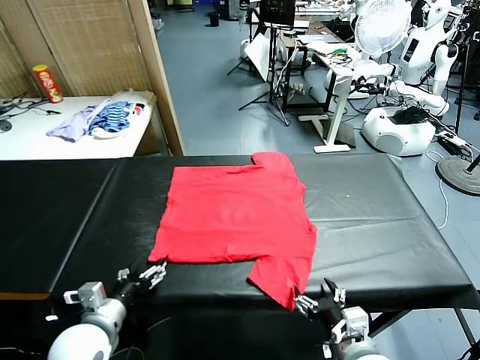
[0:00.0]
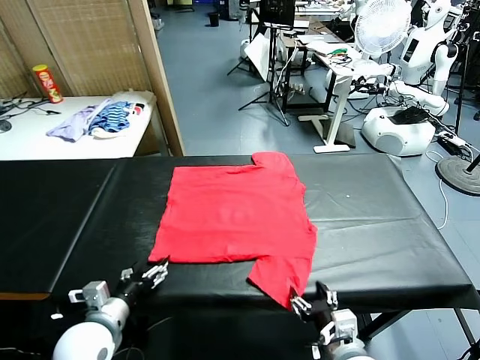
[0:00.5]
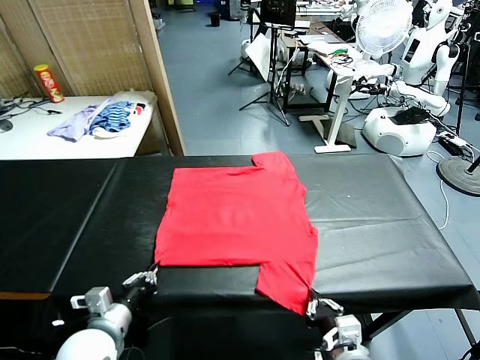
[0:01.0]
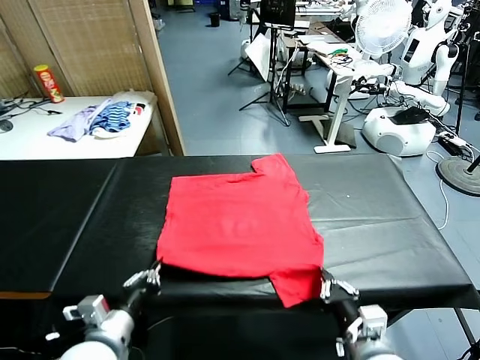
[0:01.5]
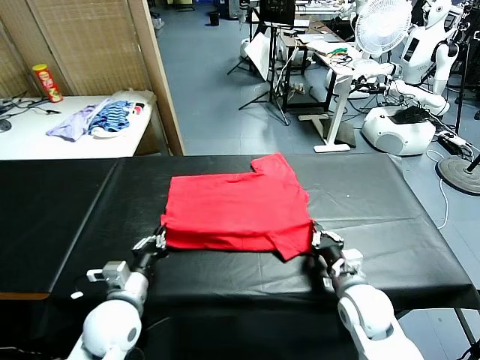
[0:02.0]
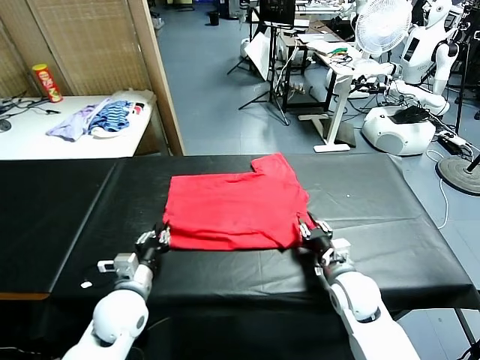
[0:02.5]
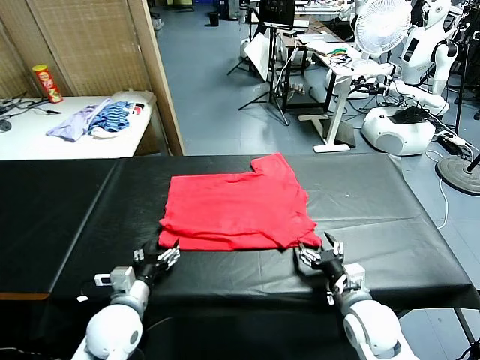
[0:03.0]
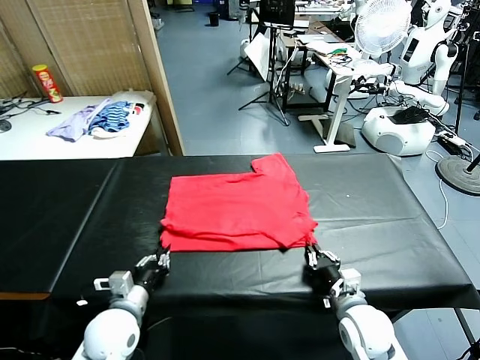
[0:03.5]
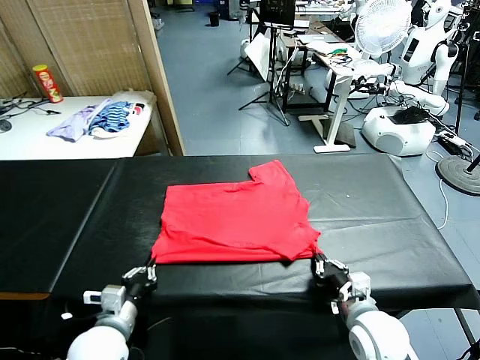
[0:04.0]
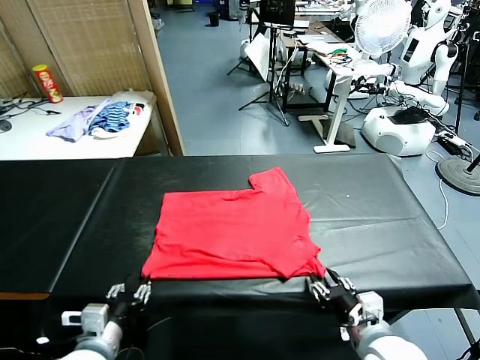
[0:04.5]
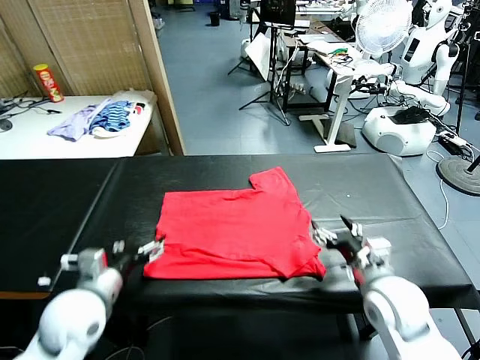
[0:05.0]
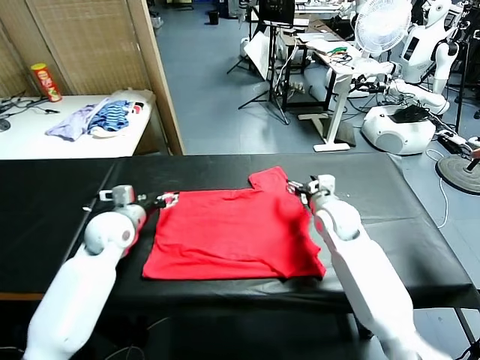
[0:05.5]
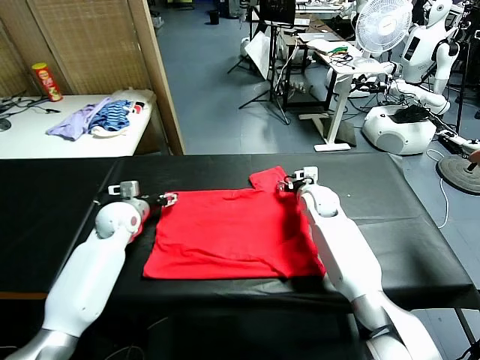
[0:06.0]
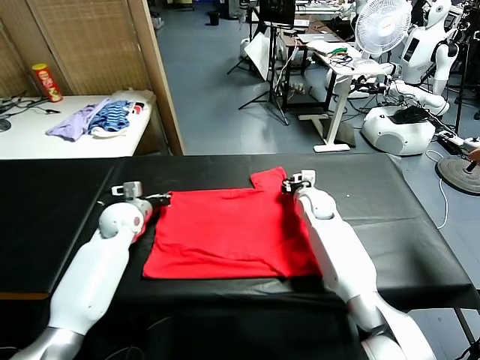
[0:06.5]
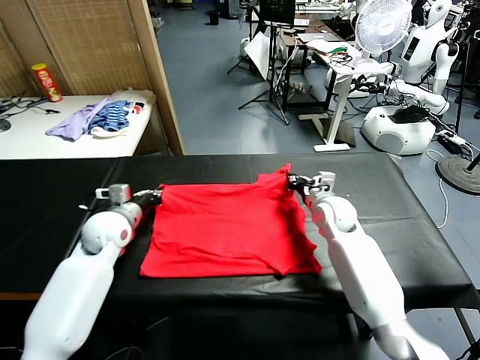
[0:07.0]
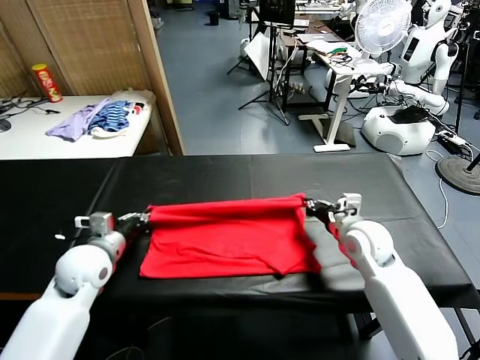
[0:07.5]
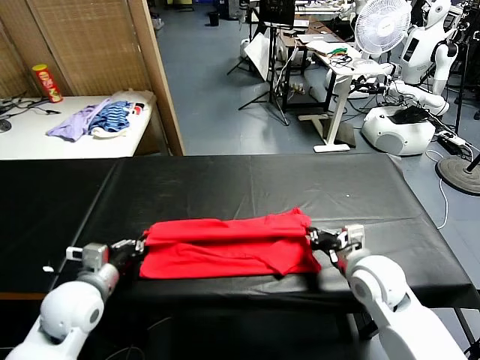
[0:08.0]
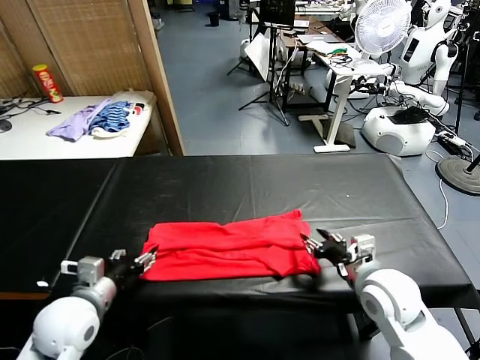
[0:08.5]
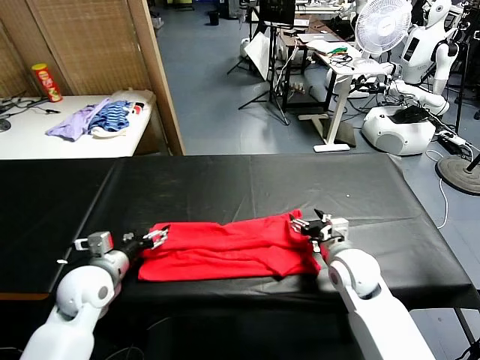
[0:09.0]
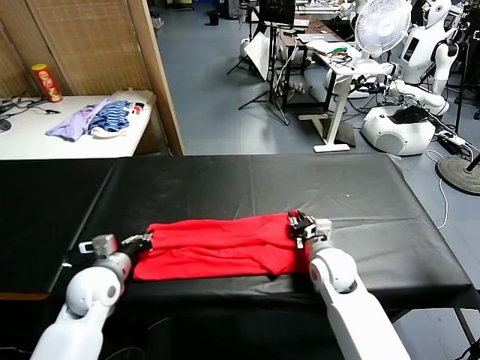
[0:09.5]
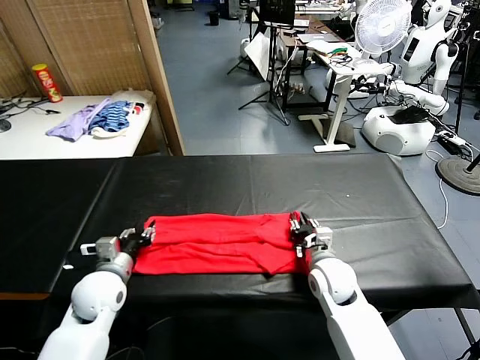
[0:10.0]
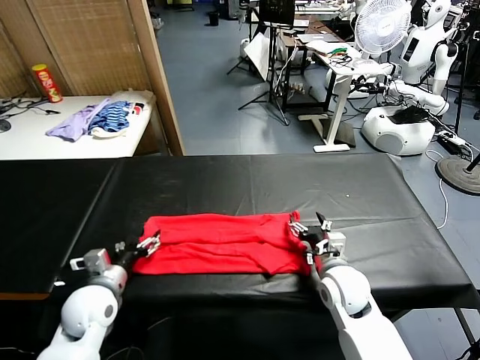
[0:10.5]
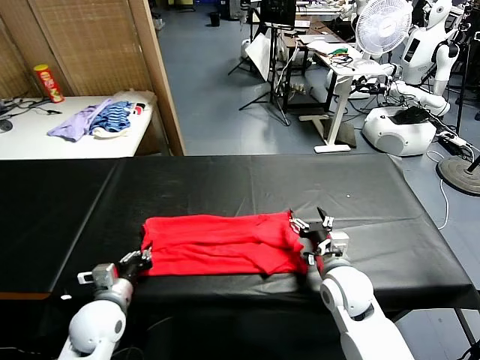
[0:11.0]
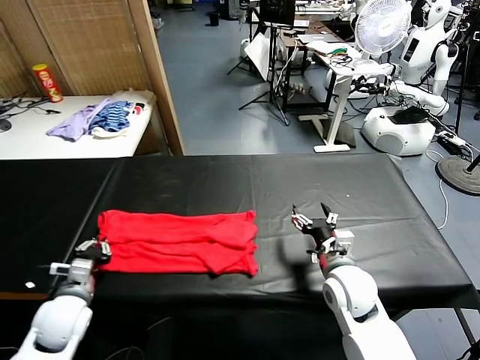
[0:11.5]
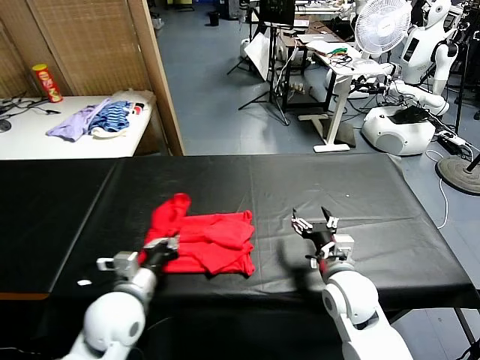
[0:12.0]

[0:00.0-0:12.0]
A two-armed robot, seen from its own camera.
Task of the whole recording: fold and organize the clothes.
Step, 0.0 to 1.0 s: use both grippers simultaneously to clamp the lower edge of the clothing fabric.
Step, 1.5 to 2.5 s: use both grippers to drag the lower edge of the fabric forward and fold it over the upper edge.
Step, 3.0 to 4.5 s: Drag the clothes downward with both gripper.
Step, 5.0 to 6.5 s: use both grippers simultaneously to clamp the upper edge of the clothing fabric.
Step, 7.5 to 8.5 s: use both grippers to drag the upper edge of the fabric backward and fold it over the lower edge.
Step, 9.0 to 11.0 s: use the left gripper to clamp the left edge of the fabric.
2.0 to 4.0 s: The left gripper goes about 5 cm backward, and opens and closes again; the right gripper travels backward by roughly 15 cm, and opens, then closes once more.
4.0 to 6.0 s: The grippers both shift forward by roughly 30 cm. The right gripper opens, then closes again. The left gripper opens up.
6.0 to 8.0 s: The two grippers go some 25 cm backward. The left gripper closes its fingers, while the right gripper closes.
8.0 to 10.0 s: The left gripper goes approximately 5 cm forward, and opens; the right gripper goes approximately 5 cm downward, and opens up.
10.0 to 12.0 s: The left gripper moves to the right and backward, about 10 cm, and closes its fingers. The right gripper shifts by roughly 5 cm.

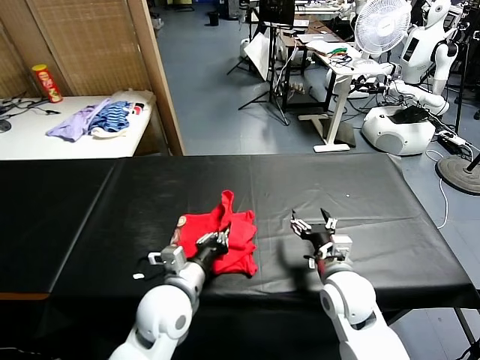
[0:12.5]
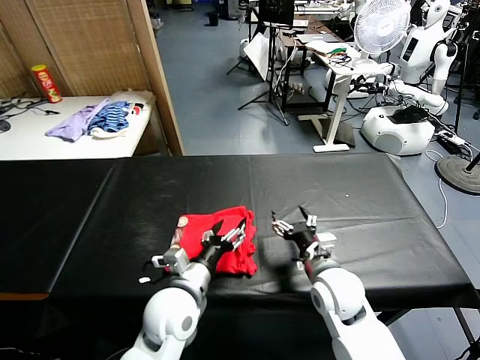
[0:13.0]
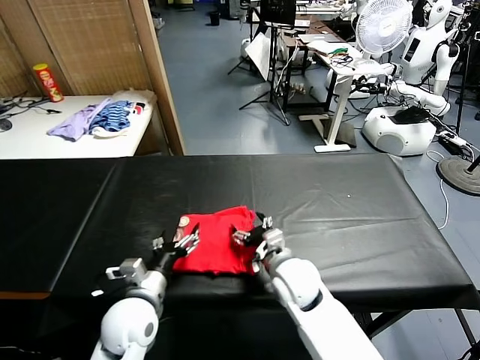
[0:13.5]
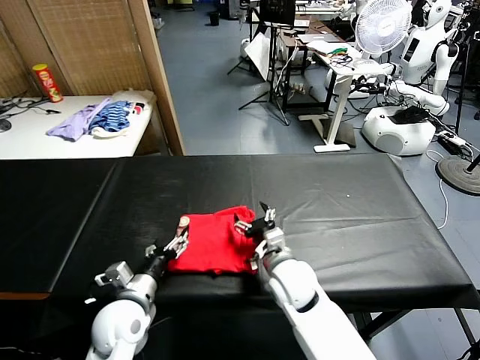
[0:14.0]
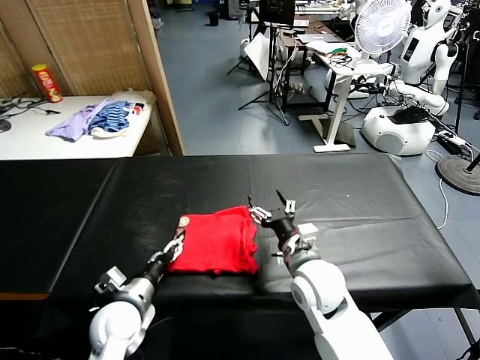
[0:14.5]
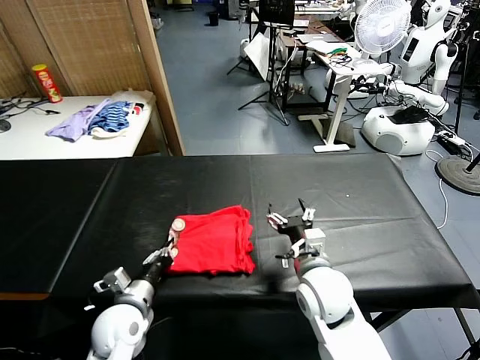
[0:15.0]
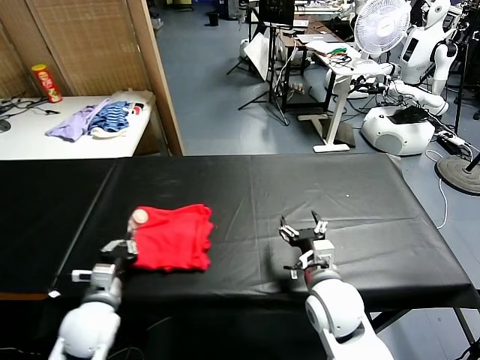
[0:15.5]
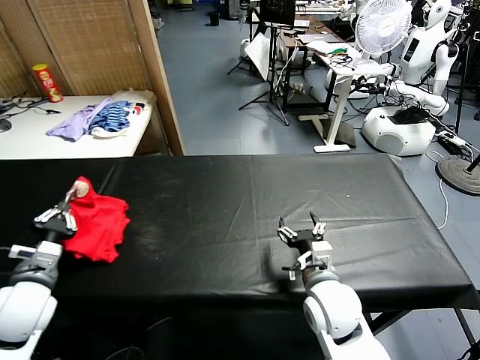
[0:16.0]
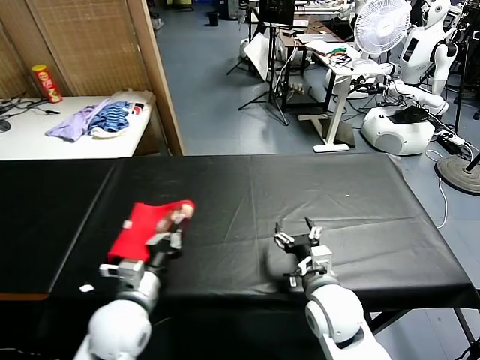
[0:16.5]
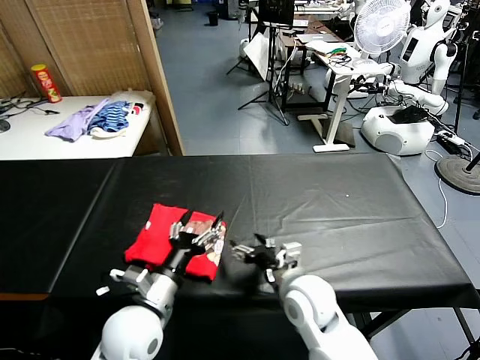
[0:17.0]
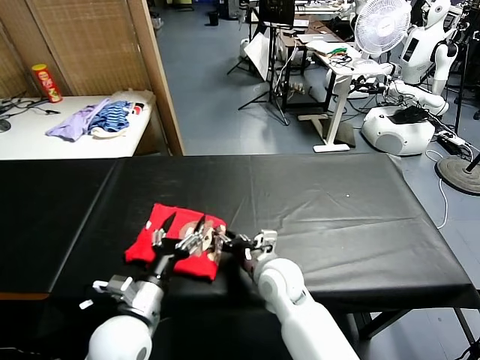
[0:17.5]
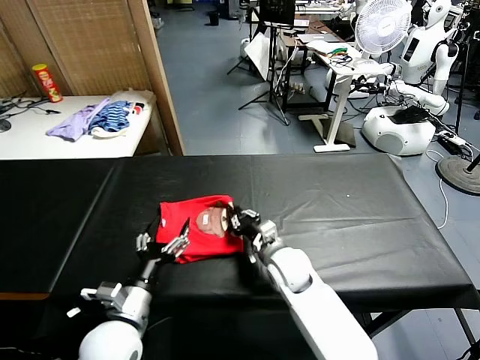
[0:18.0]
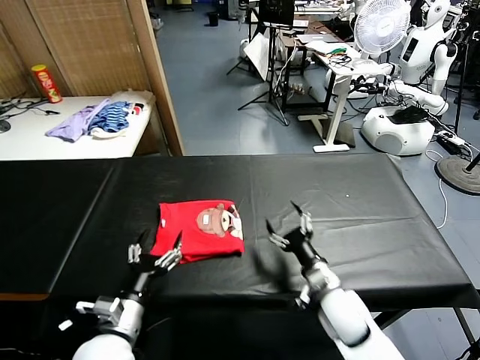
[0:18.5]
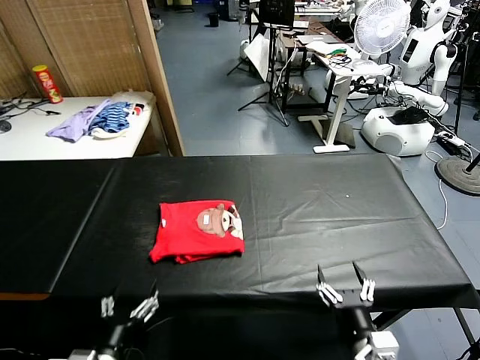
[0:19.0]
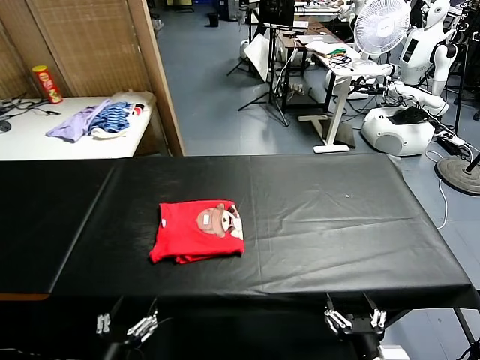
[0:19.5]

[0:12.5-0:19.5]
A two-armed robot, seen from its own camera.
Task of the whole recording: fold and organize the clothes.
Step, 13.5 to 16.5 s: Flip the folded clothes over with left gripper.
Step, 17.0 to 18.0 s: Drag the clothes to the center of the table.
12.5 to 14.5 s: The left gripper is displaced to the left and downward by approximately 15 cm, and opens its fingers; the right gripper travels to the left by roughly 5 cm.
14.5 to 16.0 s: The left gripper heads to the left and upward, covering roughly 15 cm, and closes.
16.0 to 17.5 s: The right gripper is displaced to the left and forward by approximately 10 cm, and closes its fingers. The left gripper travels to the right by some 20 cm, and opens its fingers.
17.5 to 19.5 s: The right gripper moves backward and to the right, some 30 cm, and opens; the left gripper shifts approximately 15 cm backward.

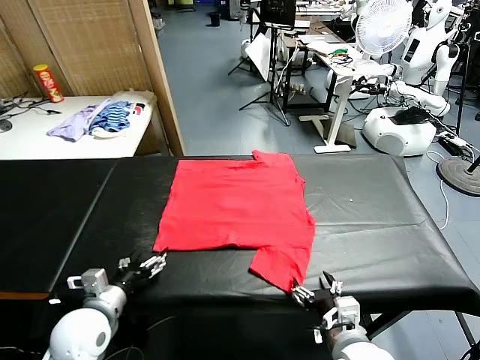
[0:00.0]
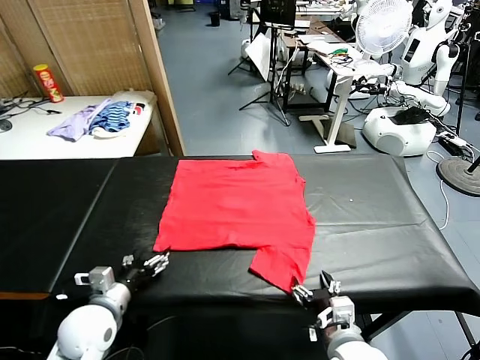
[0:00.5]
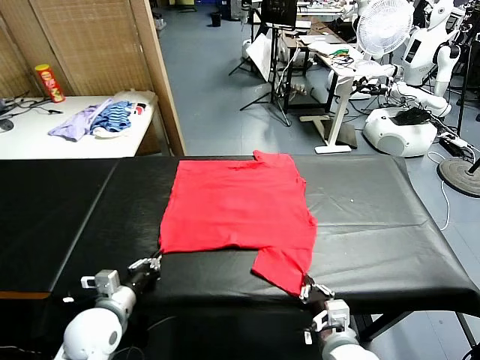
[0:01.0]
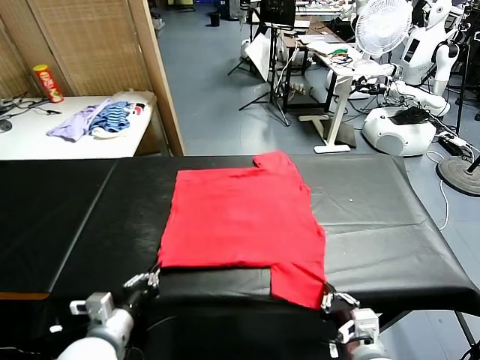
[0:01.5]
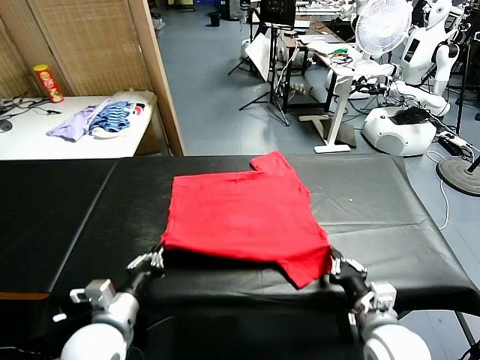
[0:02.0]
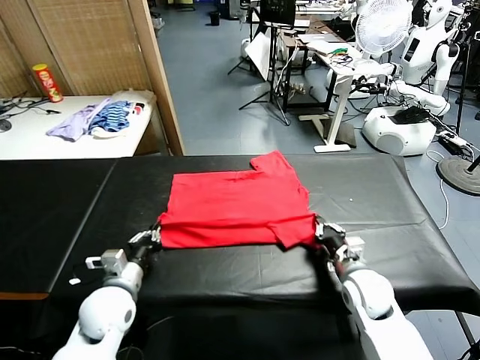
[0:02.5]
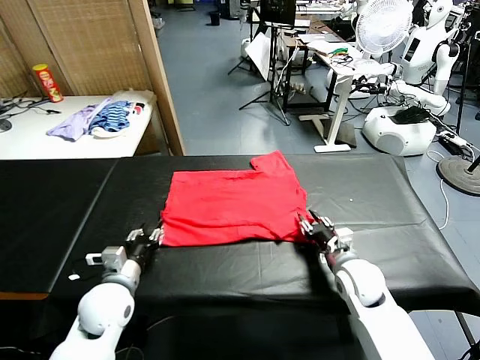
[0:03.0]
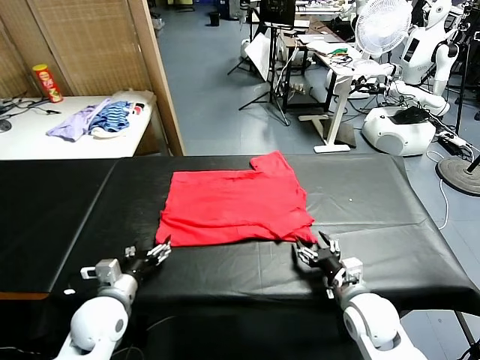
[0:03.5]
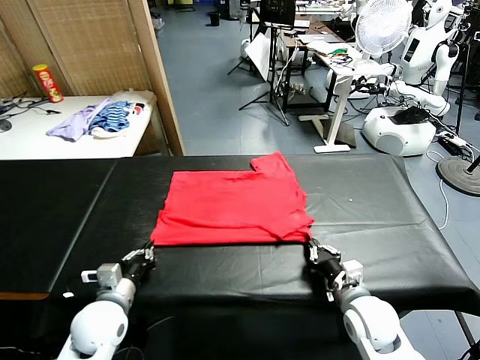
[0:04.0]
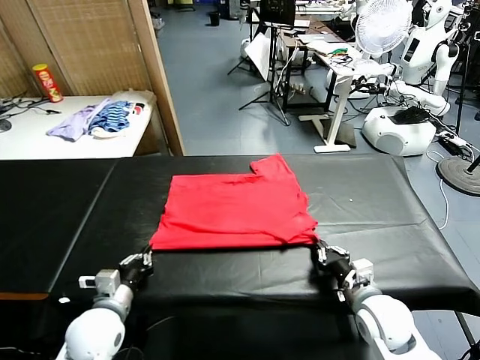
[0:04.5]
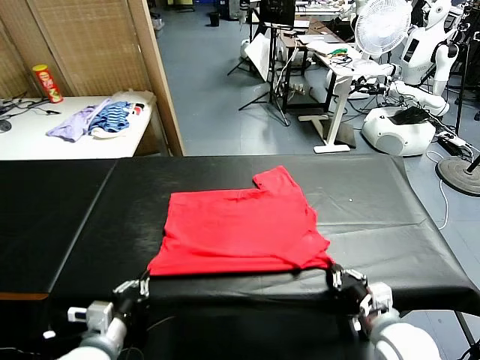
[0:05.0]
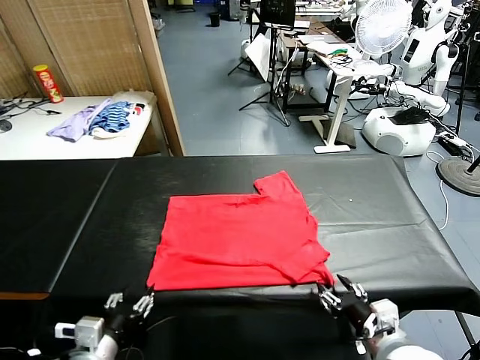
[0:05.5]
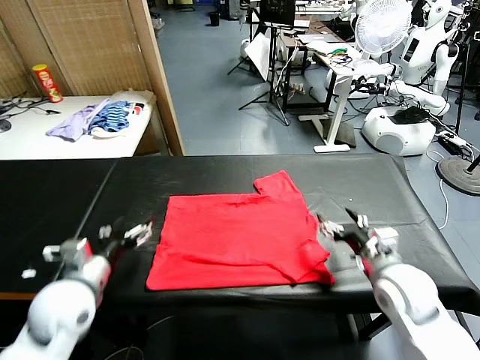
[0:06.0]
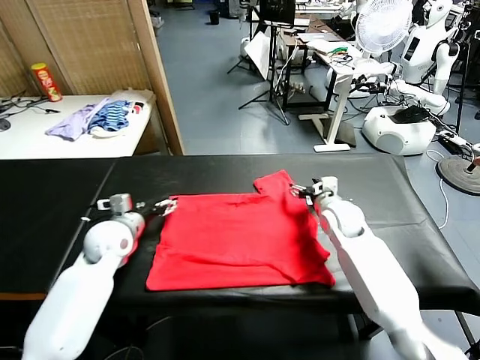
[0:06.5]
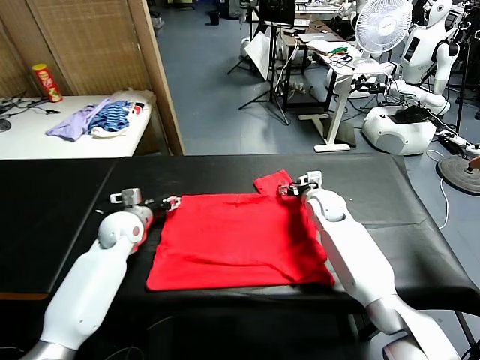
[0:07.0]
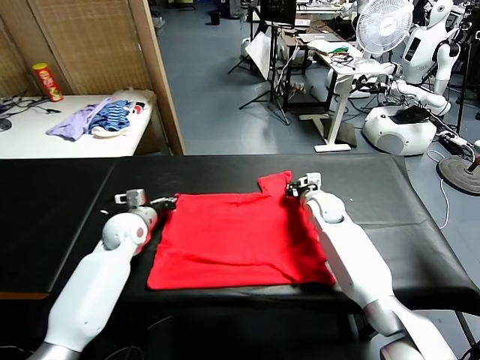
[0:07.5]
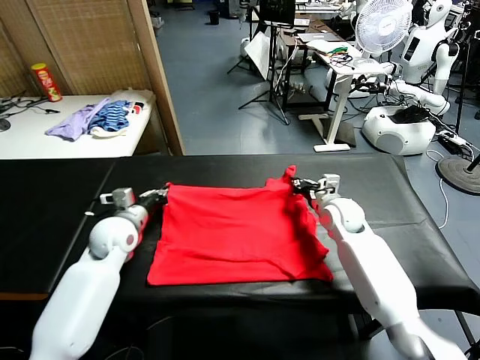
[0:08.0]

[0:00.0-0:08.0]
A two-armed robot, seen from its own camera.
Task of the whole recording: fold and organize the clothes.
Step, 0.0 to 1.0 s: use both grippers simultaneously to clamp the lower edge of the clothing fabric.
Step, 1.5 to 3.0 s: use both grippers to drag the lower edge of the fabric forward and fold it over the upper edge.
Step, 3.5 to 5.0 s: Drag the clothes downward with both gripper.
Step, 5.5 to 7.5 s: use both grippers simultaneously to clamp the upper edge of the clothing fabric.
2.0 to 4.0 s: The left gripper is displaced downward by some 5 cm, and opens and closes again; the right gripper reaches approximately 10 cm forward, then returns, and opens and closes again.
4.0 to 6.0 s: The right gripper heads forward and upward, covering some 15 cm, and opens up; the left gripper heads upward, covering roughly 10 cm, moves some 10 cm backward and comes back, and opens up.
6.0 to 8.0 s: The left gripper heads forward, covering approximately 15 cm, and closes, while the right gripper moves forward, some 5 cm, and closes up.
